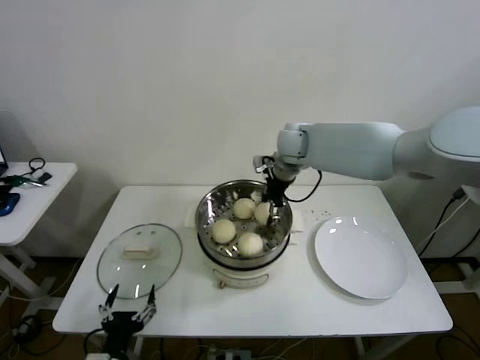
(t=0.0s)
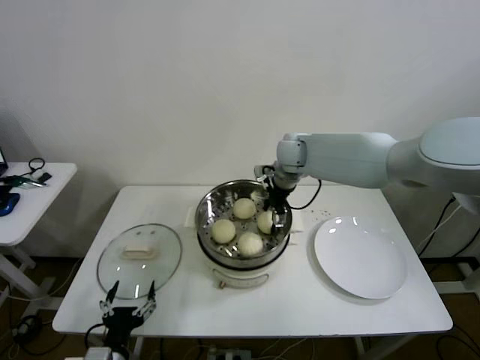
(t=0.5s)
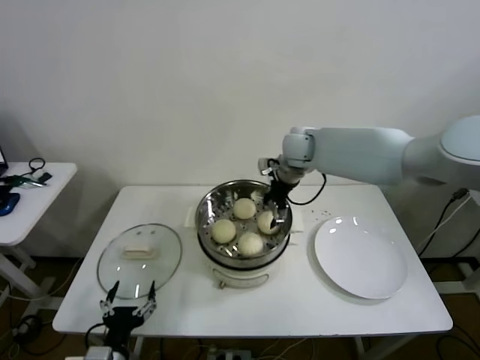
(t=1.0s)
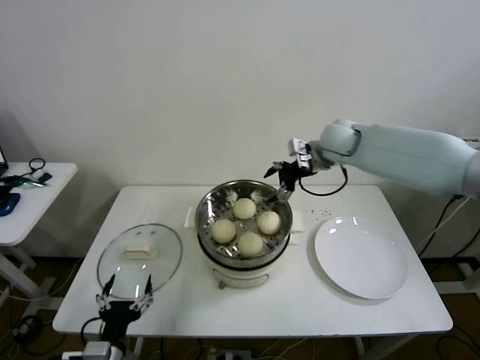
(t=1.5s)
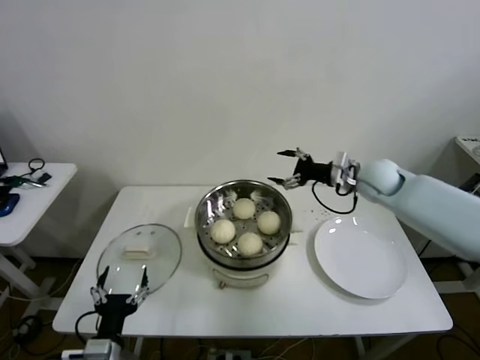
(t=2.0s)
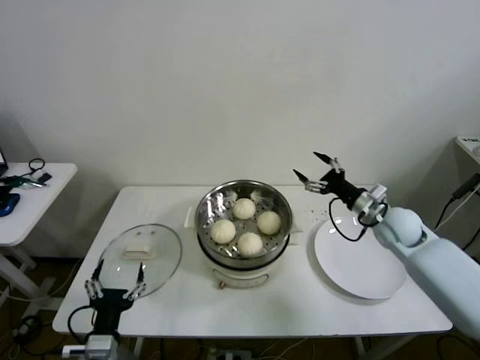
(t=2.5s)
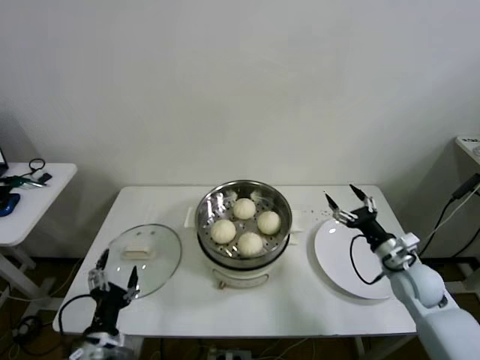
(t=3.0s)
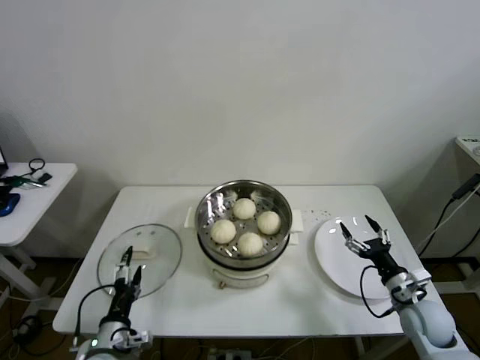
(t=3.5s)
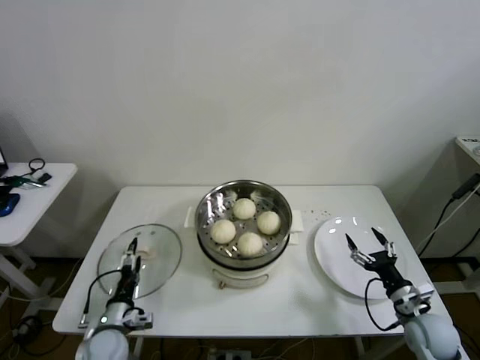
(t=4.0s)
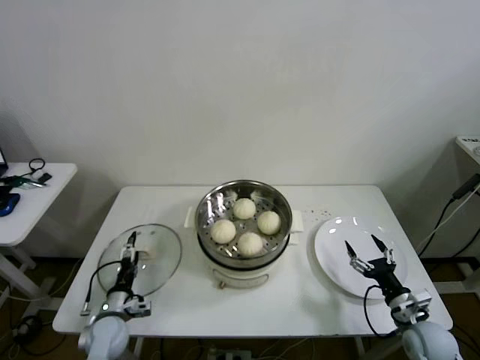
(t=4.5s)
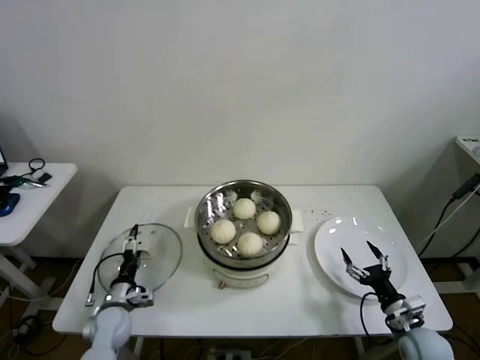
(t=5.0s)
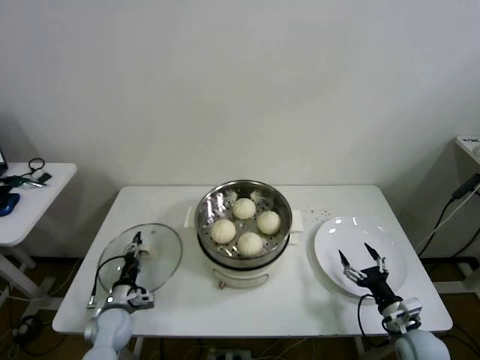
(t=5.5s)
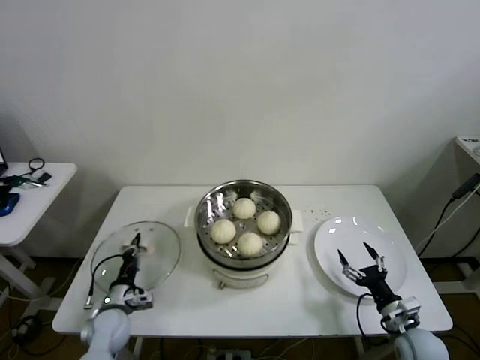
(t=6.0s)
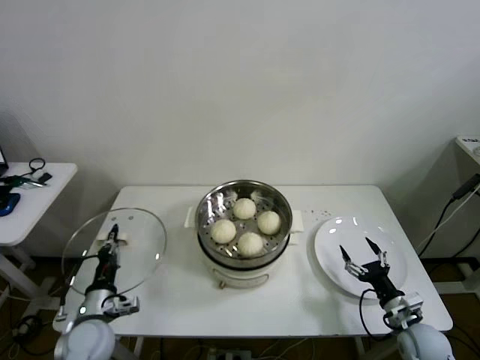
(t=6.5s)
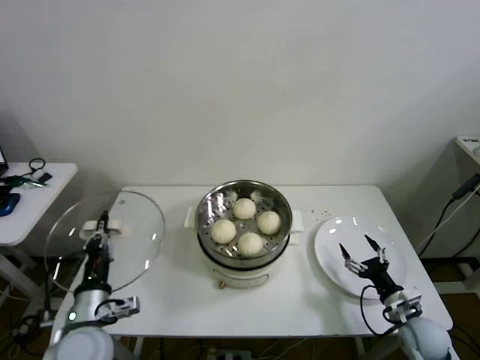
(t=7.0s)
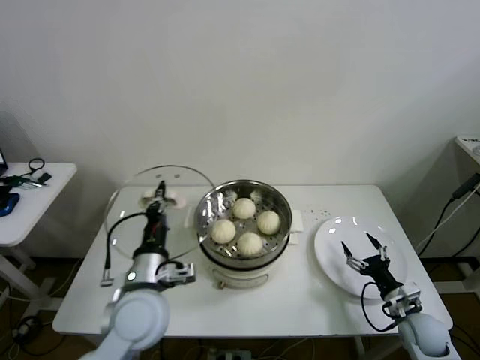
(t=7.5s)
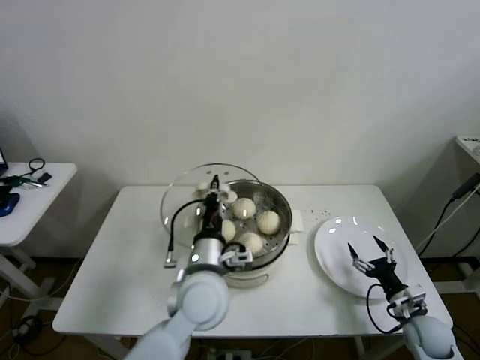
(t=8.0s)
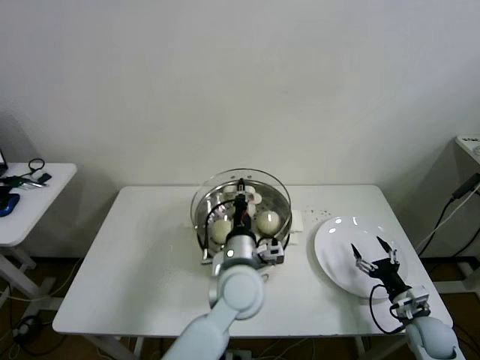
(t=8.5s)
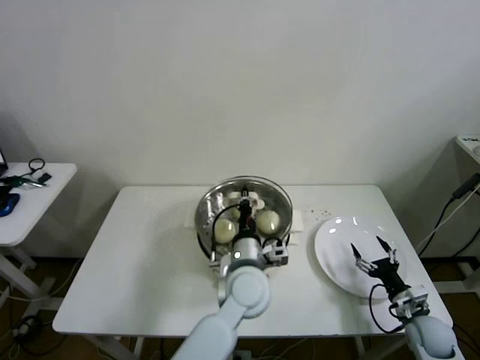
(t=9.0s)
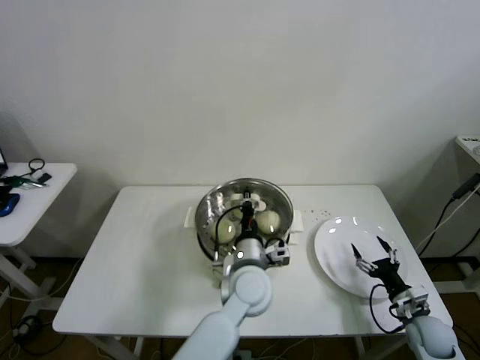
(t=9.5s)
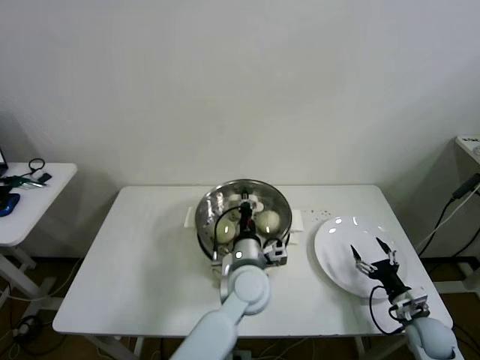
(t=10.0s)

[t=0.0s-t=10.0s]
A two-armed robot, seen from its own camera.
Step, t=1.0s to t=5.5s: Grasp the pot lid with left gripper.
t=0.0s to t=2.0s: The right gripper heads to the right, covering roughly 20 cm, and opens.
t=2.0s to t=4.0s: The right gripper travels backward and downward by some 35 cm. Meanwhile the left gripper moves forward and downward, some 15 cm.
t=4.0s to t=6.0s: The left gripper heads forward, covering approximately 5 cm, and closes up.
t=6.0s to t=8.0s: The left gripper travels to the right and upward by roughly 35 cm.
t=8.0s to t=10.0s: The left gripper travels to the right and downward by some 10 cm.

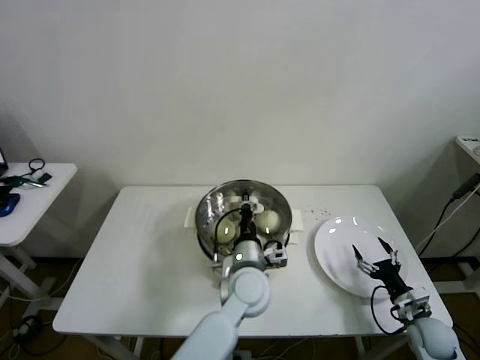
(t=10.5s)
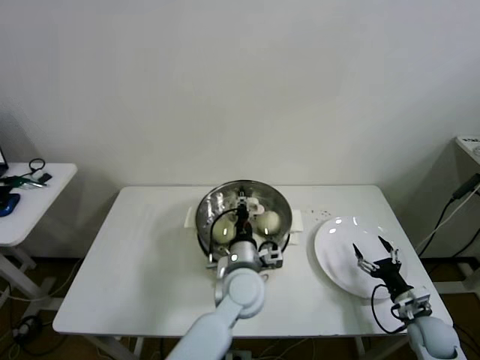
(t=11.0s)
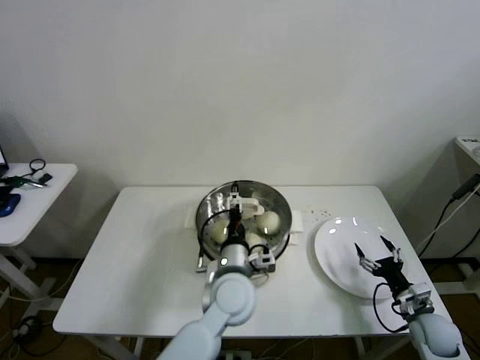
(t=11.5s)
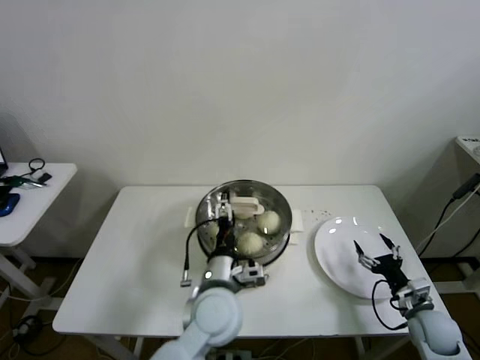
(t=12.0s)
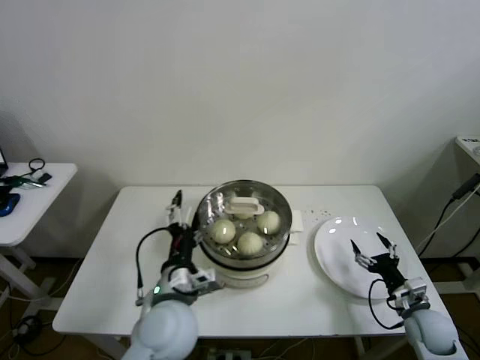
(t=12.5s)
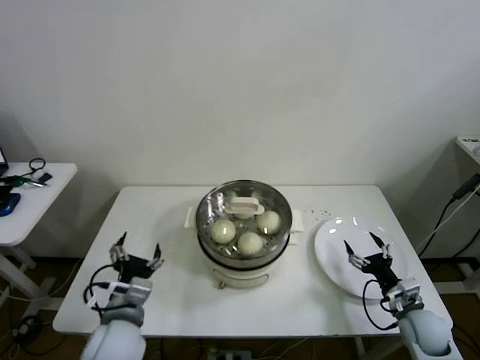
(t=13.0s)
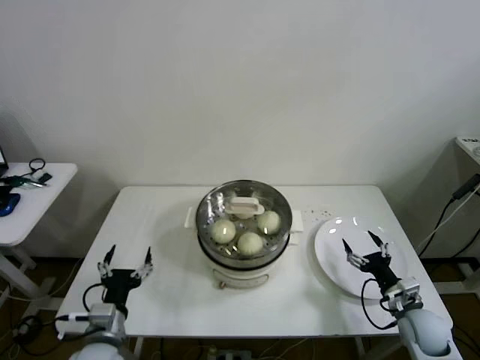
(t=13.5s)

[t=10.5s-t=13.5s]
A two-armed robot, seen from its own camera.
t=10.5s to t=12.0s: The left gripper is displaced to the left and backward by about 5 cm, and opens up.
t=12.0s to t=13.5s: The left gripper goes about 25 cm to the left.

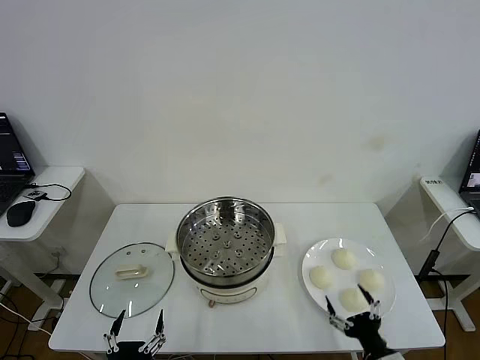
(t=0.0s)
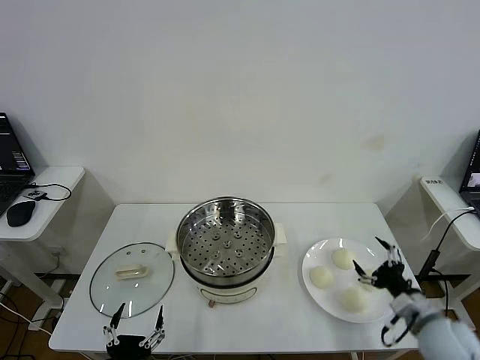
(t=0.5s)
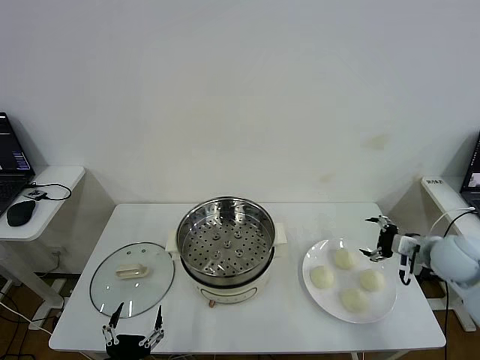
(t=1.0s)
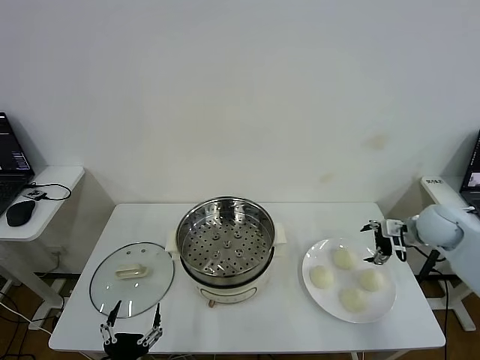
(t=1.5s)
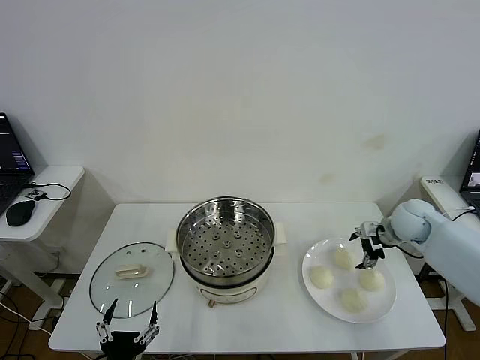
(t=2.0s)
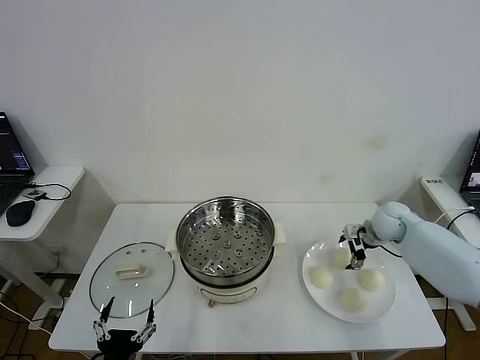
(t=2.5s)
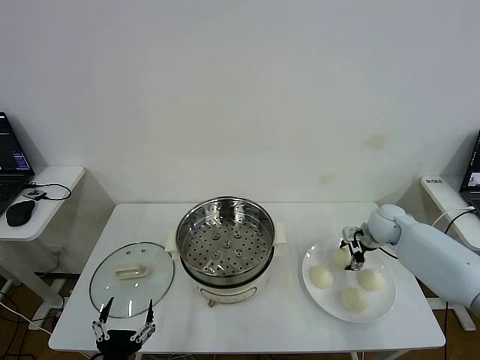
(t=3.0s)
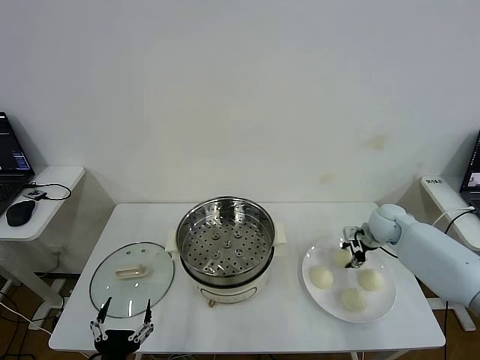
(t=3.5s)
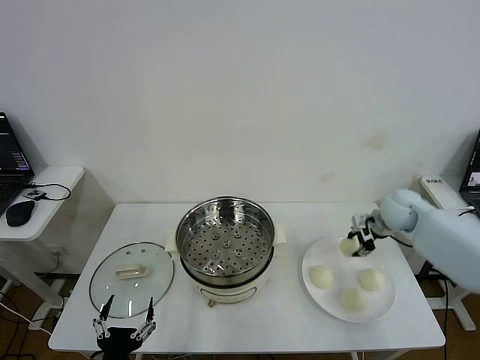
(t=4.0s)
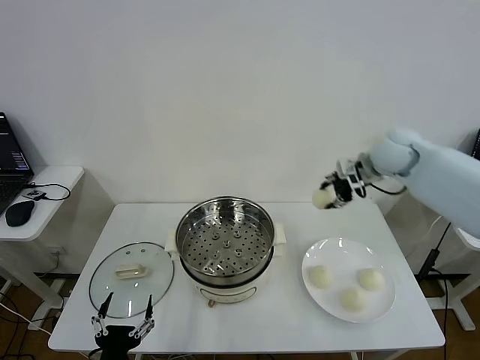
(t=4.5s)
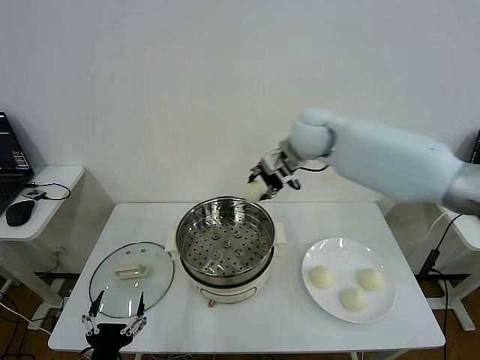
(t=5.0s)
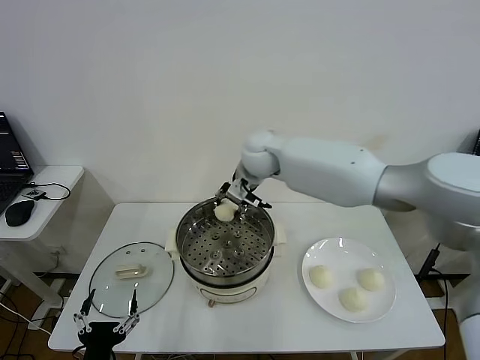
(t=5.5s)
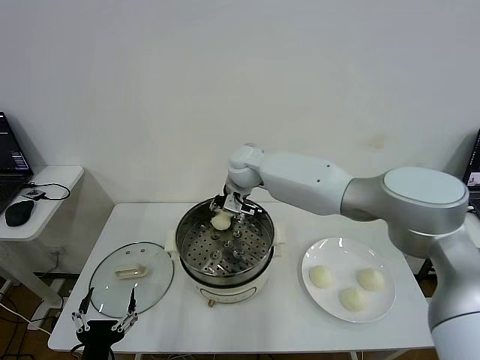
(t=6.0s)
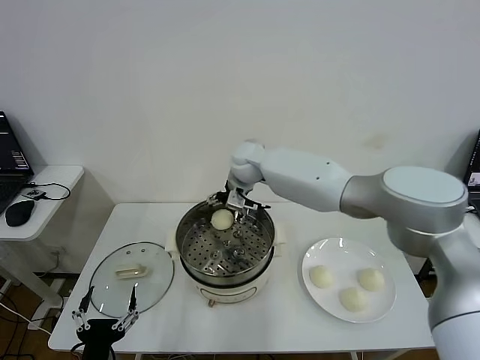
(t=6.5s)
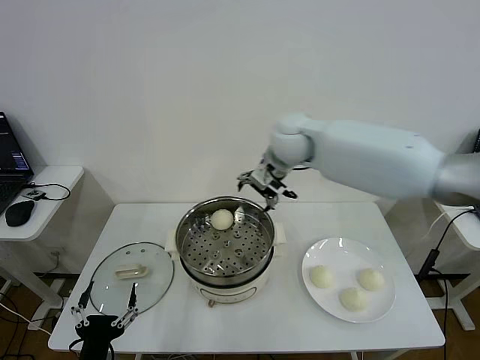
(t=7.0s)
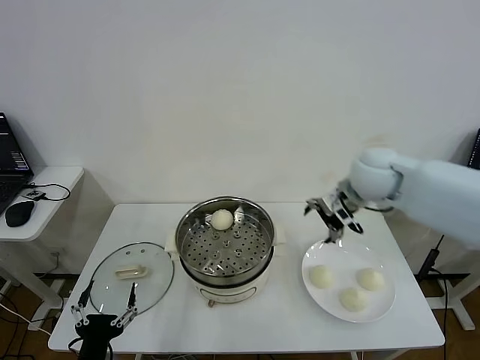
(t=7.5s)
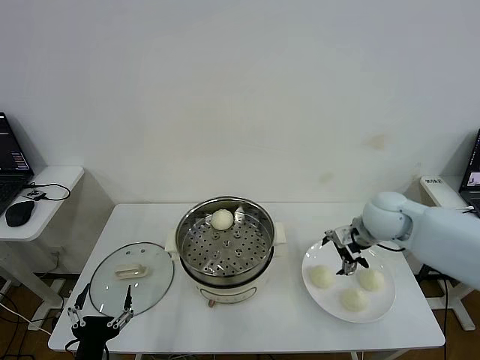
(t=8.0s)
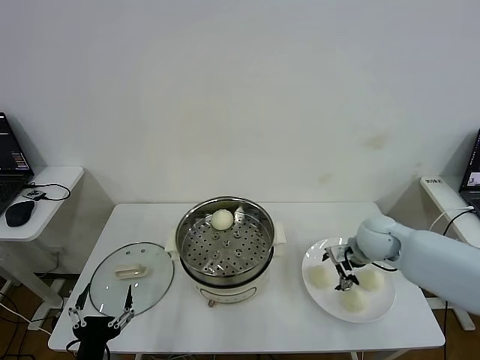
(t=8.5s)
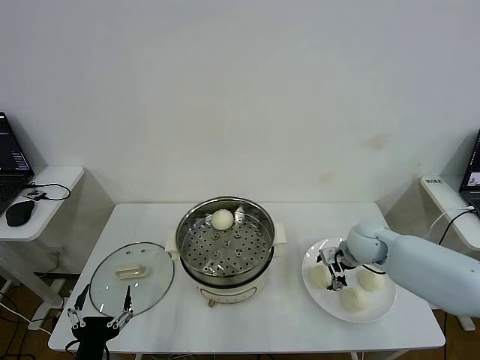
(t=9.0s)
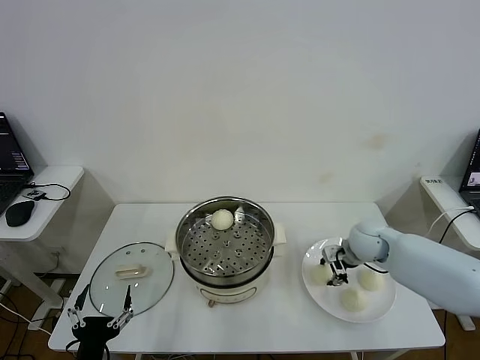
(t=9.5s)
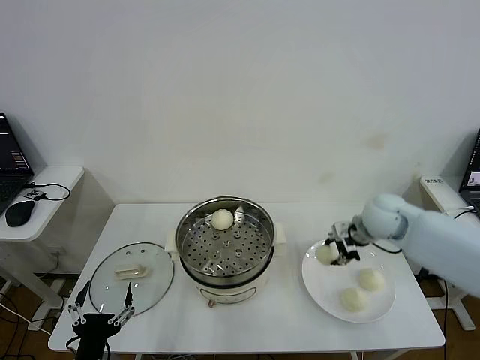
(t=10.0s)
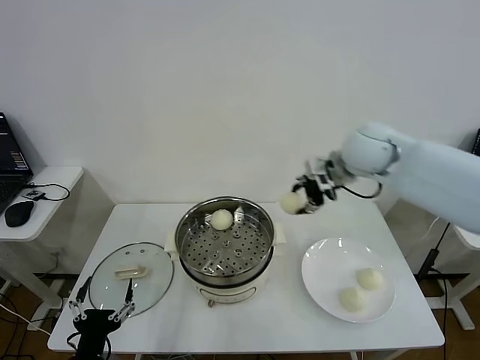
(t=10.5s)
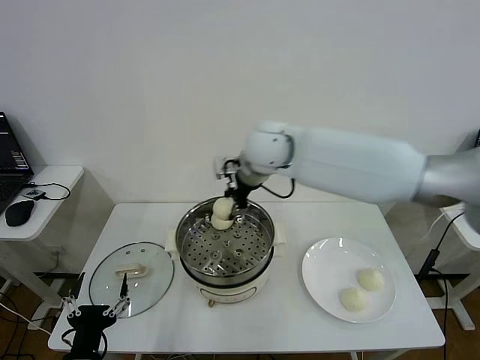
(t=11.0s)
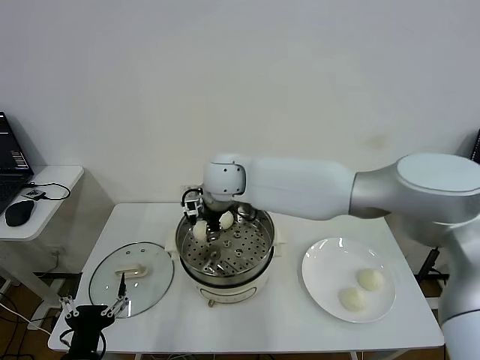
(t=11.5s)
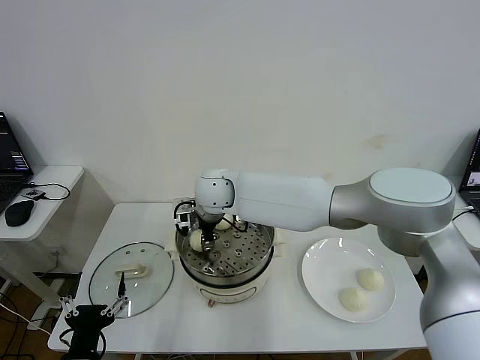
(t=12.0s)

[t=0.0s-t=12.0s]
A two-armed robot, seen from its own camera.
Step, t=0.0s to t=3.5s: Grasp the baozi in the plate with right gripper.
Step, t=4.0s to t=6.0s: Place the baozi on the steamer with right gripper.
Step, t=6.5s to t=9.0s: Grasp the baozi in the plate with right gripper.
t=2.0s to t=4.0s: The right gripper moves upward, approximately 5 cm, and closes up.
t=4.0s to t=6.0s: The right gripper is displaced to the left by about 35 cm.
t=6.0s to t=8.0s: The right gripper moves to the right and backward, roughly 35 cm, and opens.
t=8.0s to t=10.0s: The right gripper moves approximately 10 cm downward and comes back, and closes its fingers.
t=10.0s to t=12.0s: The right gripper travels to the left by roughly 35 cm.
